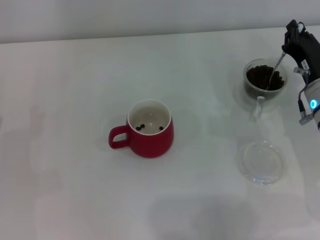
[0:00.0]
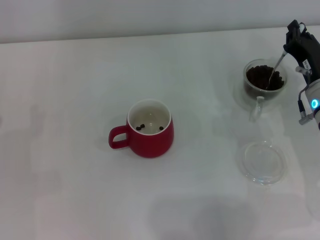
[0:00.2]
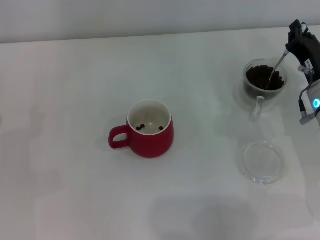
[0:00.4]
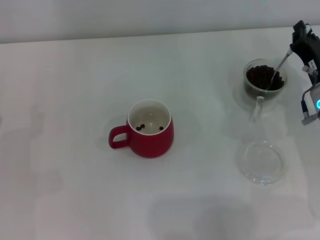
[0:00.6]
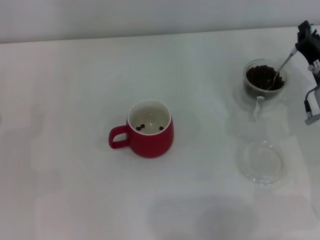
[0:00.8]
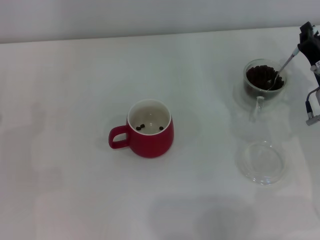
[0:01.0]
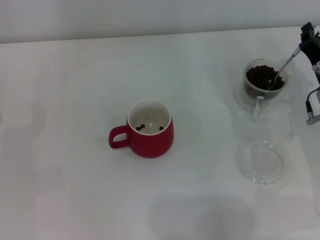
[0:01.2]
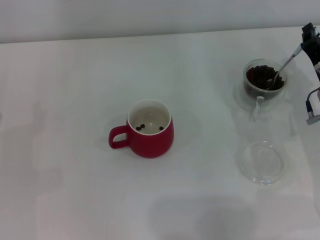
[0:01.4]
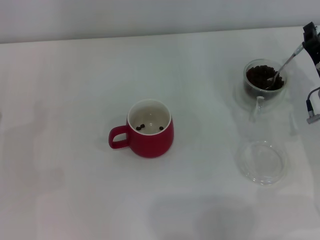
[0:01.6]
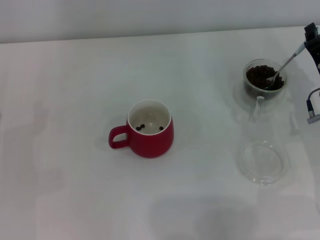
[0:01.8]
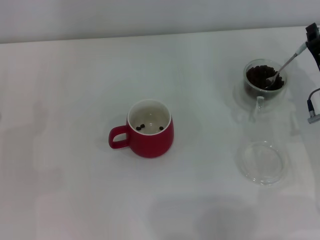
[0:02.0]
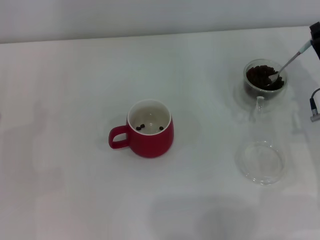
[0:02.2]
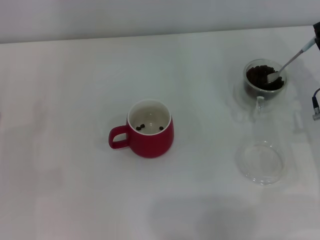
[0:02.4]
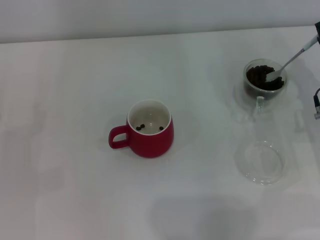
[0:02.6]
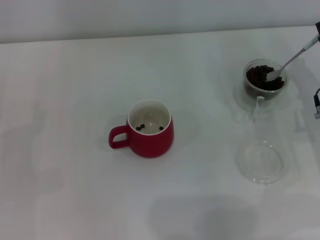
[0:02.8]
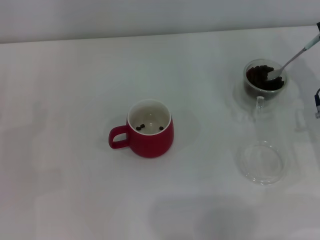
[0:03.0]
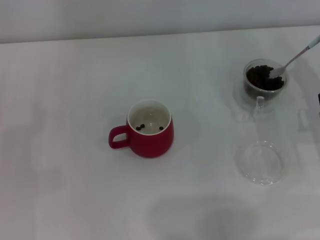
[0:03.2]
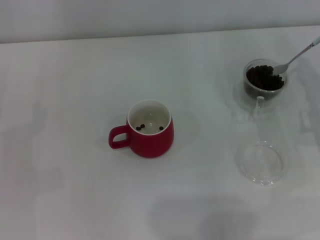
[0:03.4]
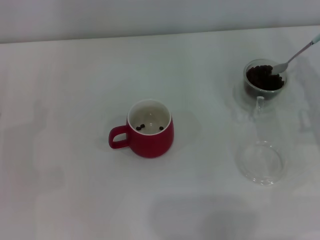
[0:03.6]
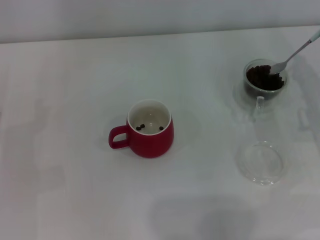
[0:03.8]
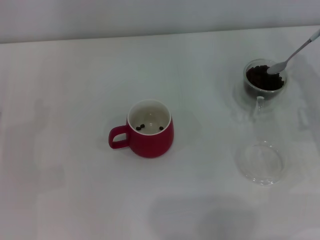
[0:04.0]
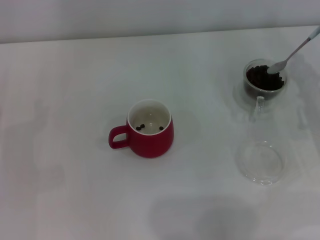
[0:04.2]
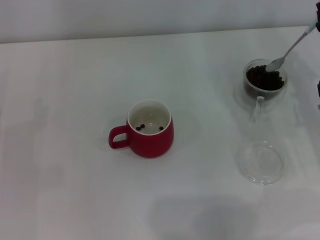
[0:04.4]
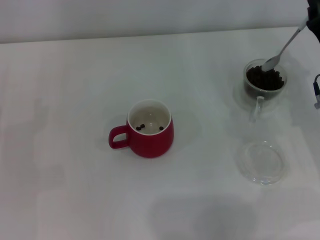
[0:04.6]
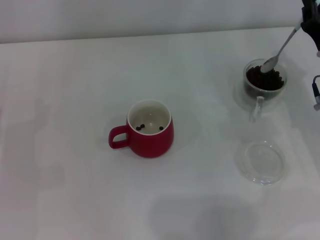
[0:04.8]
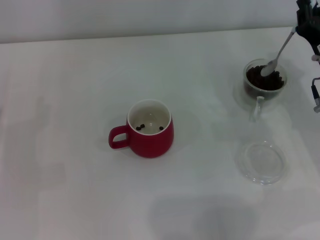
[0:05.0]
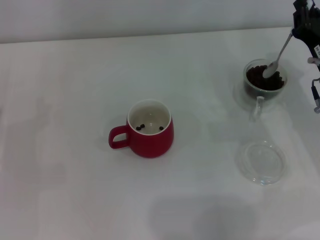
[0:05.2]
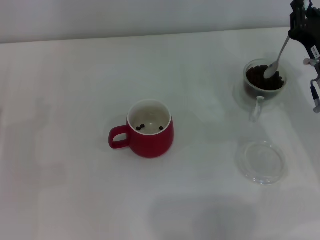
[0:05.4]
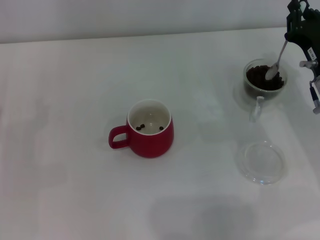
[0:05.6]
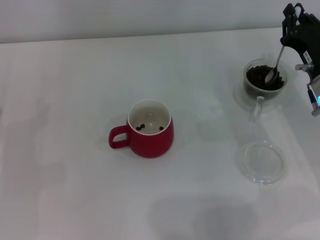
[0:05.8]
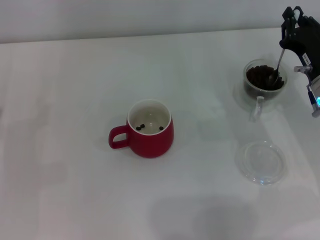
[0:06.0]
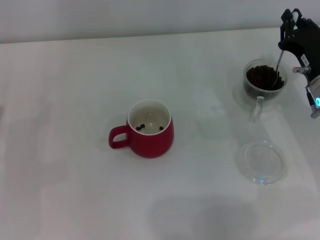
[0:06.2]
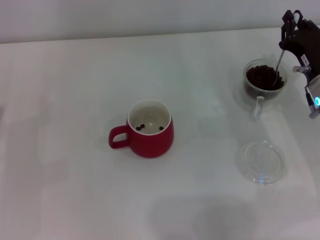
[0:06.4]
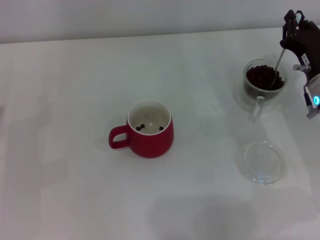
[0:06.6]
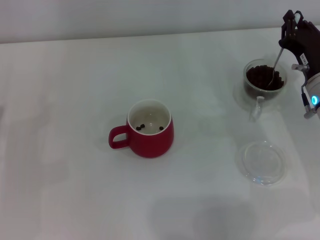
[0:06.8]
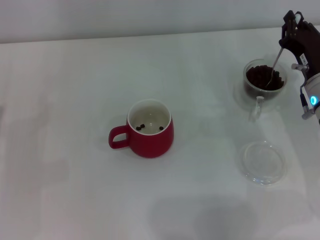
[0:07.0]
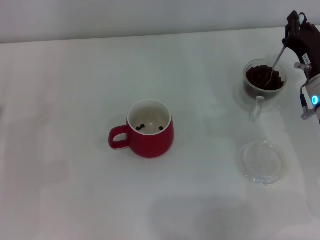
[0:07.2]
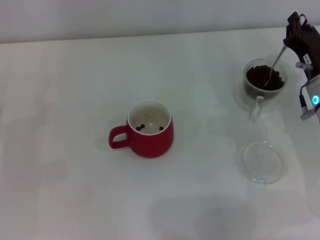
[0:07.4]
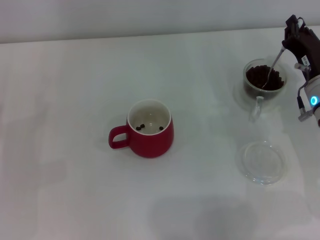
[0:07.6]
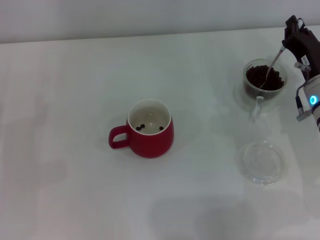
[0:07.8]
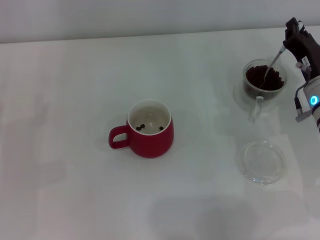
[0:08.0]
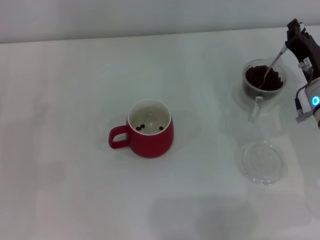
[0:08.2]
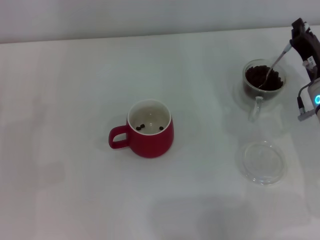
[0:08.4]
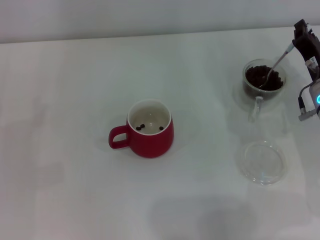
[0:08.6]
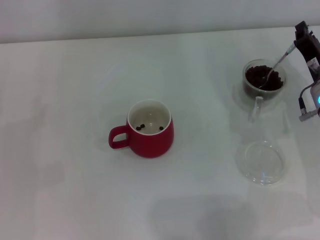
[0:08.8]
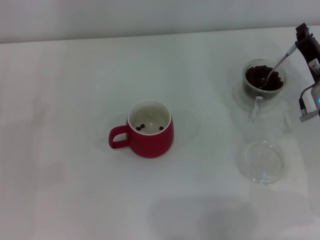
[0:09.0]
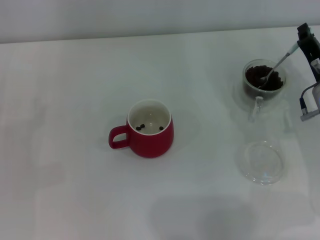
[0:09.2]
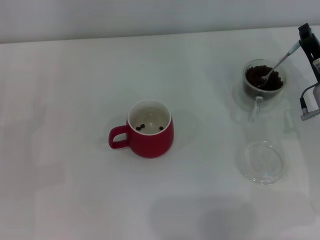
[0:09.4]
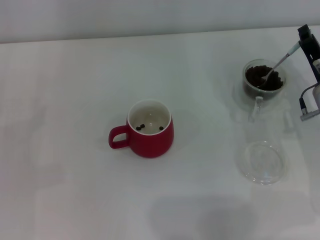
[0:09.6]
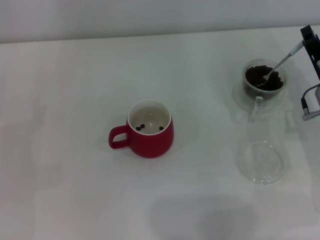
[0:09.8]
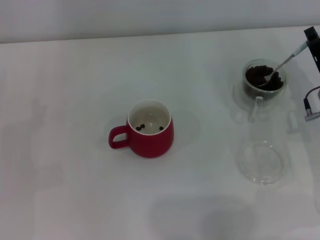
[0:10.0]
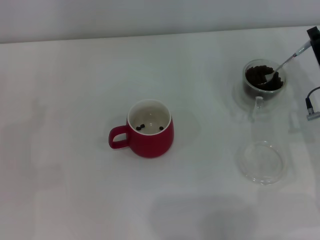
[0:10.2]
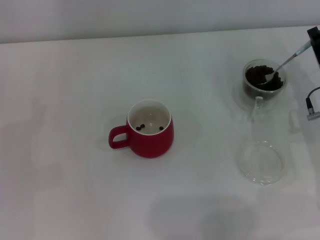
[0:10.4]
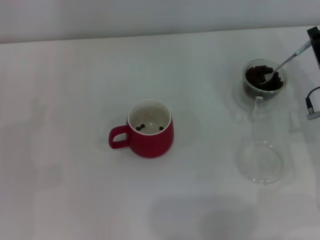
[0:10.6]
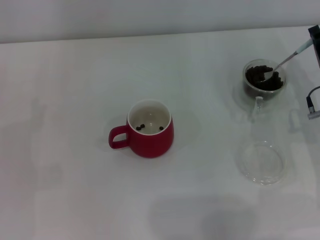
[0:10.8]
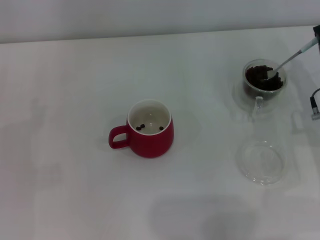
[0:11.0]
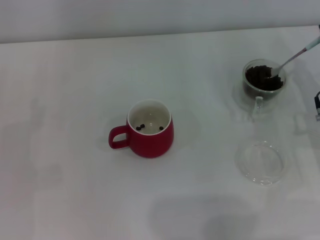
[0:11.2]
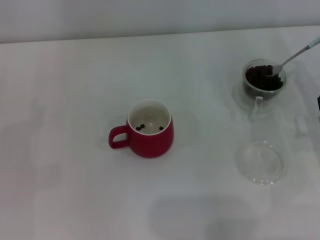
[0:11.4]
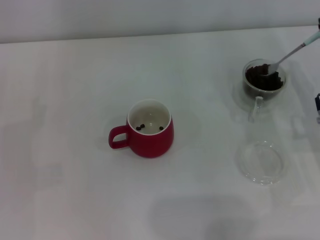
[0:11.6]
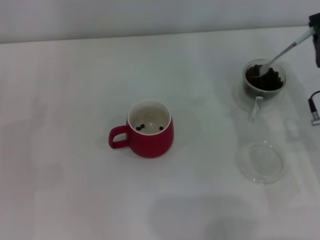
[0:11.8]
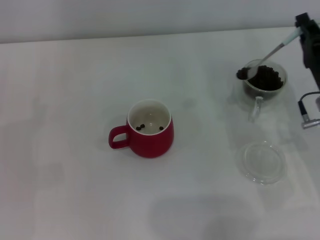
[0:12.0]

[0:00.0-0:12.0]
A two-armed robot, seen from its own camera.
Task of the whole recording: Use a blue spoon to take out the coffee beans from the glass and pour them into the red cup.
0:00.0 to 0:01.6: The grippers stay close to where they were, moving slightly.
0:01.6 to 0:04.4: The grippers stay close to where they were, moving slightly.
0:06.0 to 0:07.6: The grippers make only small movements.
0:07.6 to 0:09.0: There are only small adjustments of the grippers.
0:09.0 to 0:10.4: The grippers move only a little.

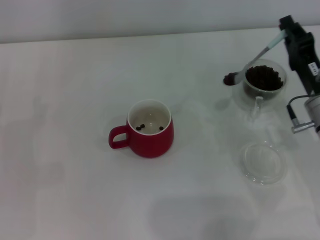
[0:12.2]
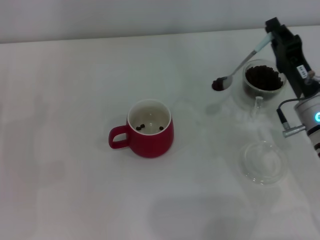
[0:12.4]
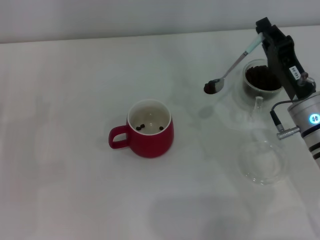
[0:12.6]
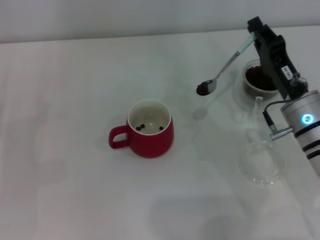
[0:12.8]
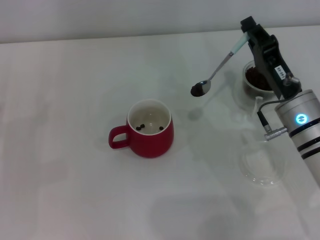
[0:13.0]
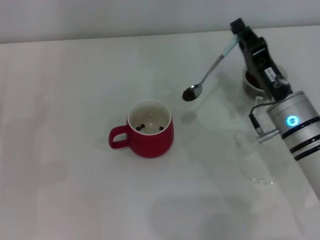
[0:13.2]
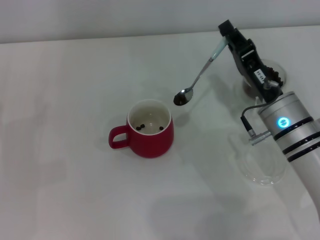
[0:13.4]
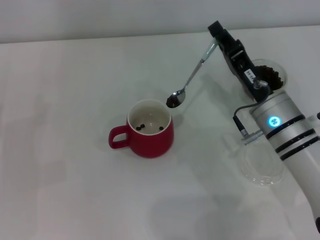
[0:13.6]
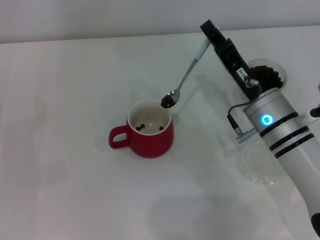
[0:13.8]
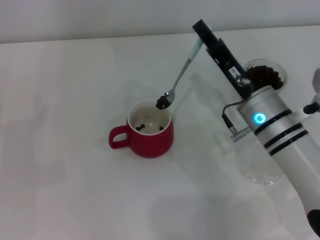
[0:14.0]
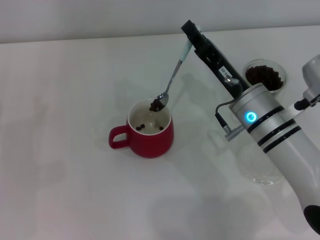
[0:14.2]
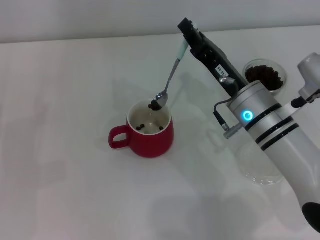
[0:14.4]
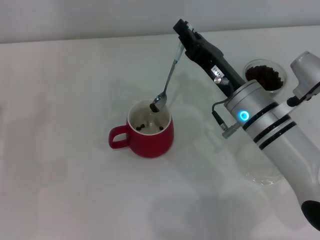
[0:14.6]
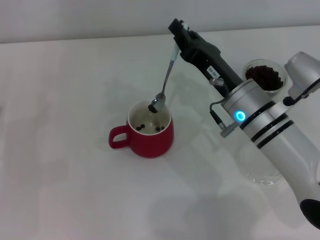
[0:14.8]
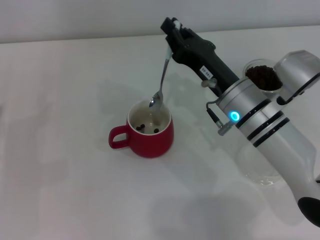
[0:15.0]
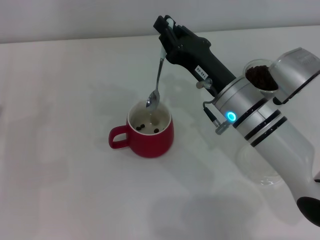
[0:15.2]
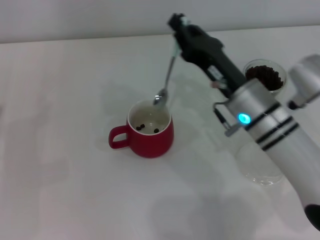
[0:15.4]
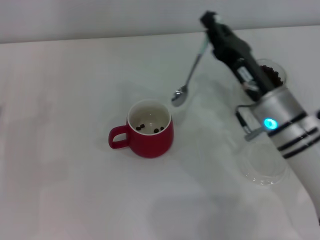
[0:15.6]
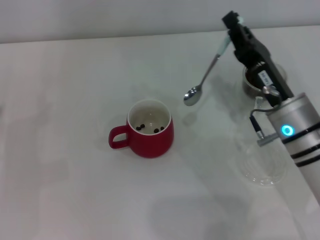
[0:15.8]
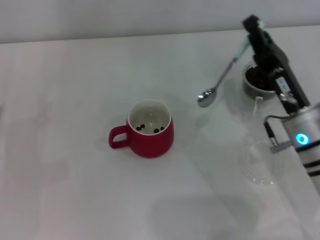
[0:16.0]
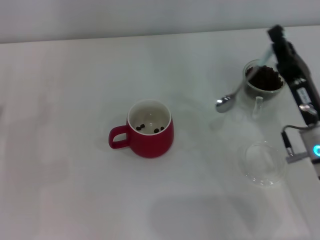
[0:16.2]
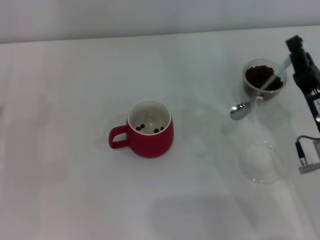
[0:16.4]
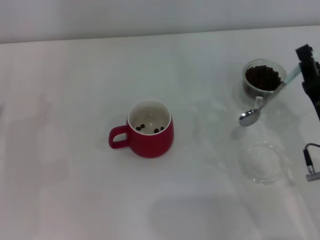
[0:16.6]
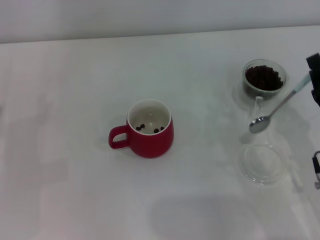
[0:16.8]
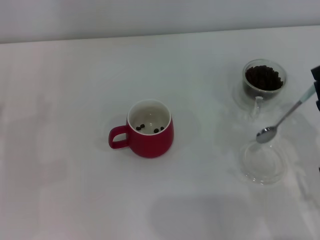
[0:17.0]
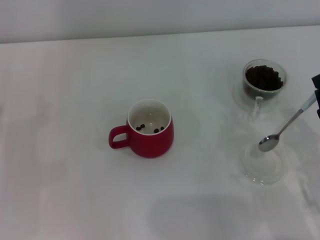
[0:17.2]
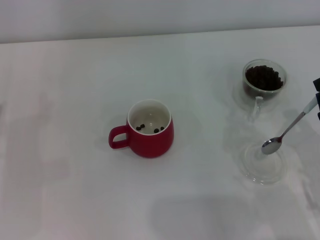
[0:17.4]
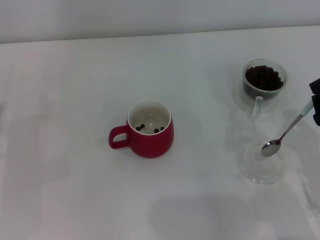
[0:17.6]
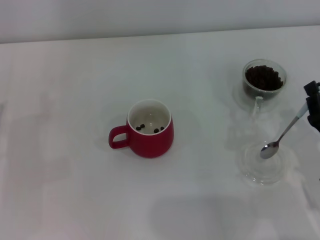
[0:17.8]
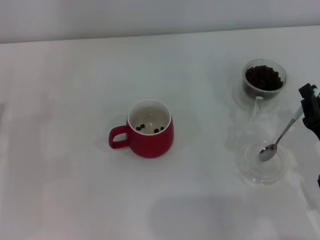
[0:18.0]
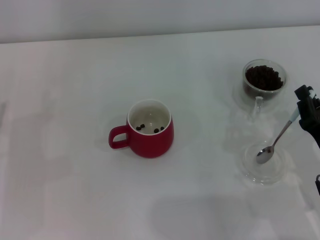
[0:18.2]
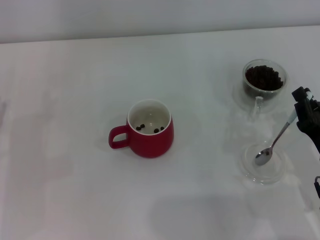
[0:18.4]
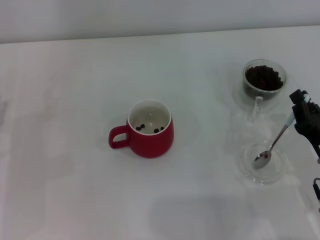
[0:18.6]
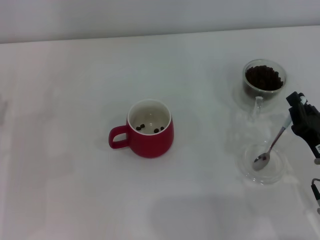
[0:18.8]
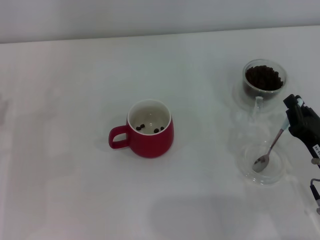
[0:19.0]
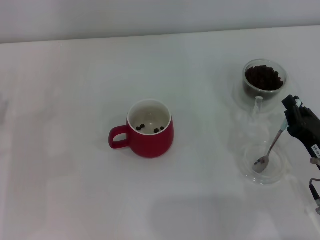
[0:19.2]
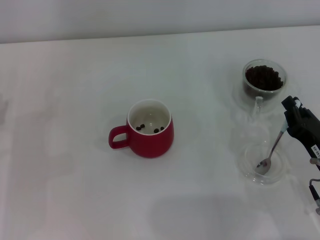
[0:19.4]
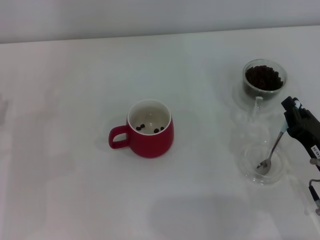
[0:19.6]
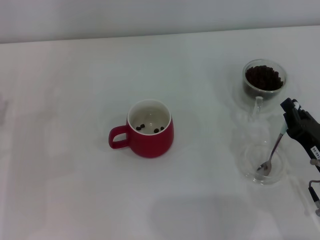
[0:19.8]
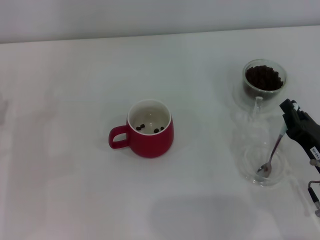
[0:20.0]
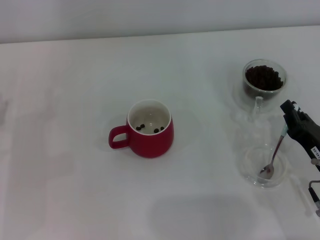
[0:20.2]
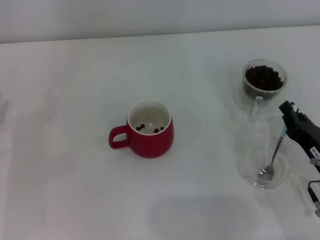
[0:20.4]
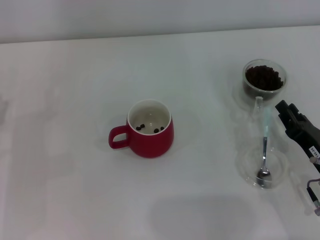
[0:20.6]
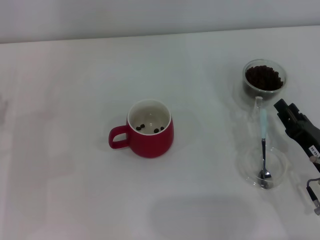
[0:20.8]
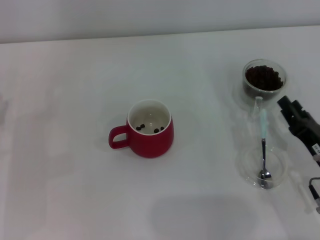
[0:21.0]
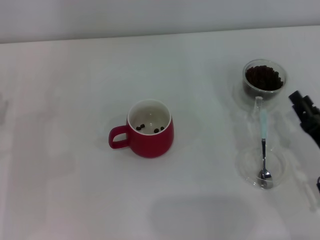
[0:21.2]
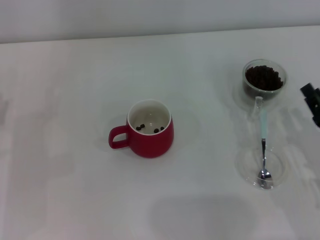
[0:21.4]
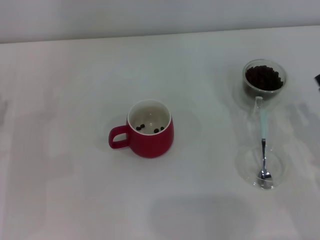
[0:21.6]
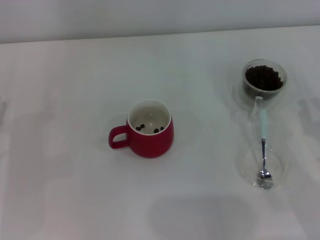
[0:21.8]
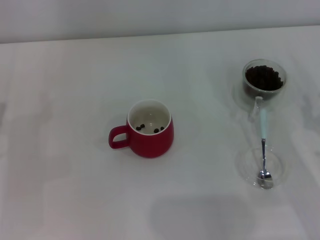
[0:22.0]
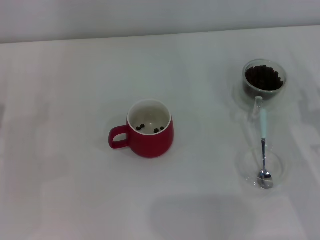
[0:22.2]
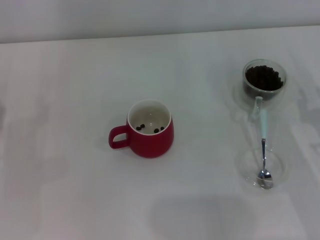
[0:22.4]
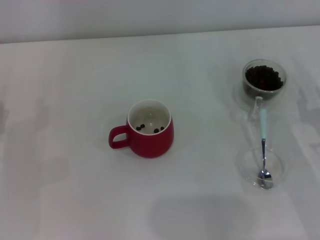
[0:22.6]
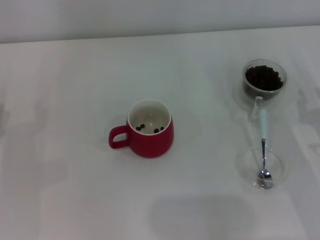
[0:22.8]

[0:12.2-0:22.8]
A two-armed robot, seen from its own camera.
Task of the whole recording: Use a blue spoon to take out the coffee beans from the glass and pour them into the red cup.
Step, 0:12.2 to 0:14.8: Scoop a spoonful of beans into the cup with the right gripper.
Step, 0:15.0 to 0:20.6: Place the spoon back in its original place with the right gripper.
0:12.2 to 0:13.8: The right gripper shifts approximately 10 cm to the left.
0:15.2 to 0:16.8: The right gripper heads to the right and backward, covering some 15 cm.
0:16.8 to 0:19.8: The grippers stay close to where they were, moving slightly.
0:19.8 to 0:21.2: The right gripper opens up.
0:21.2 to 0:22.8: The right gripper moves approximately 5 cm.
